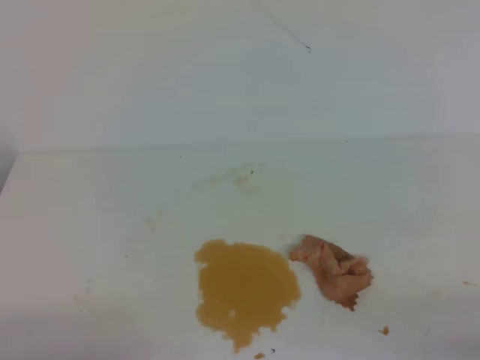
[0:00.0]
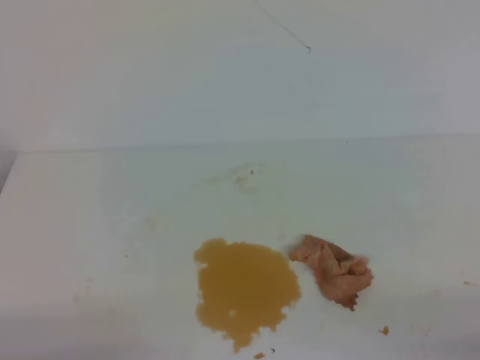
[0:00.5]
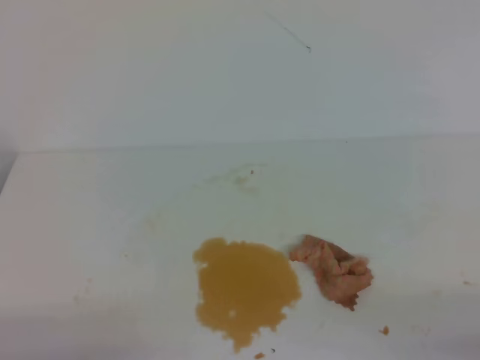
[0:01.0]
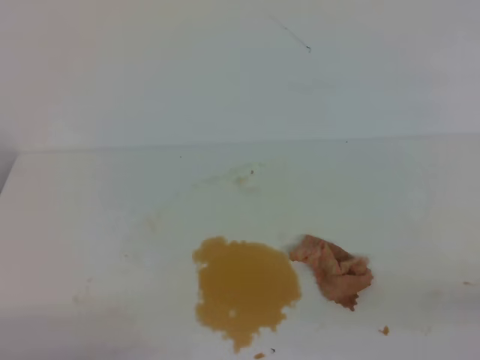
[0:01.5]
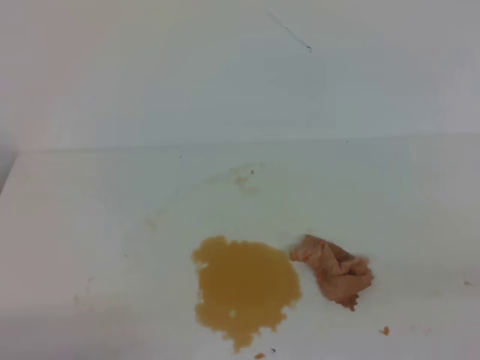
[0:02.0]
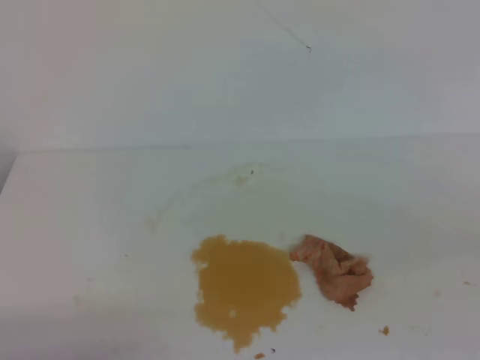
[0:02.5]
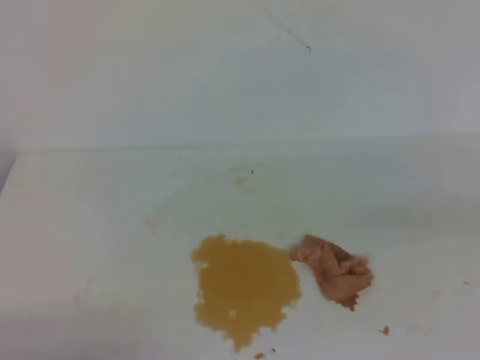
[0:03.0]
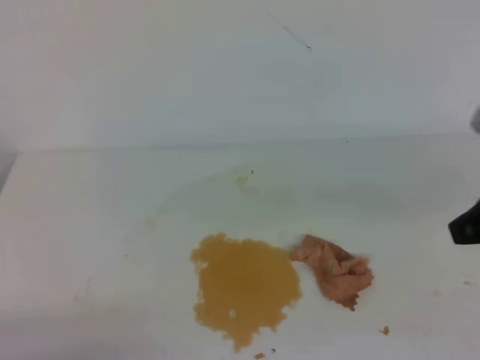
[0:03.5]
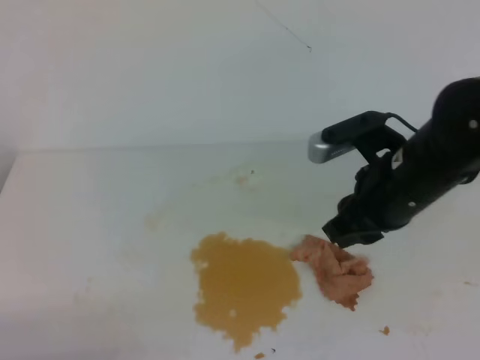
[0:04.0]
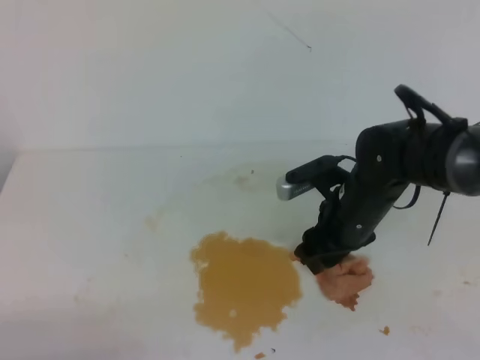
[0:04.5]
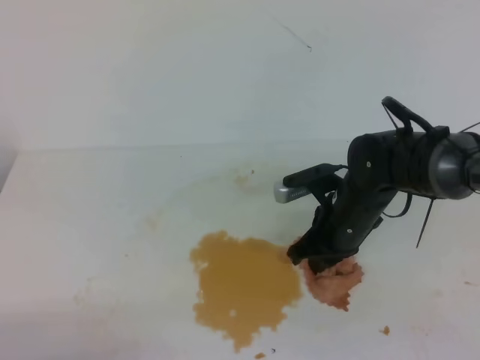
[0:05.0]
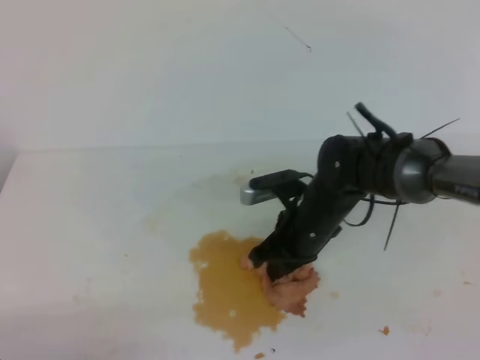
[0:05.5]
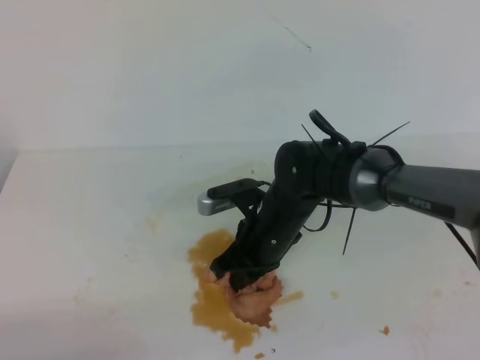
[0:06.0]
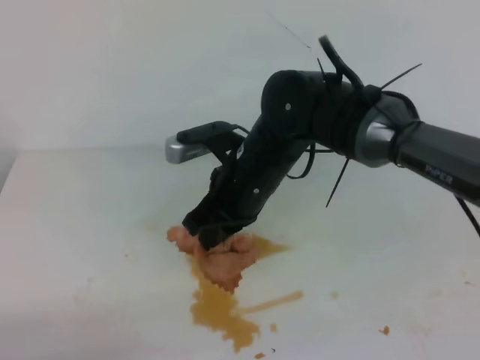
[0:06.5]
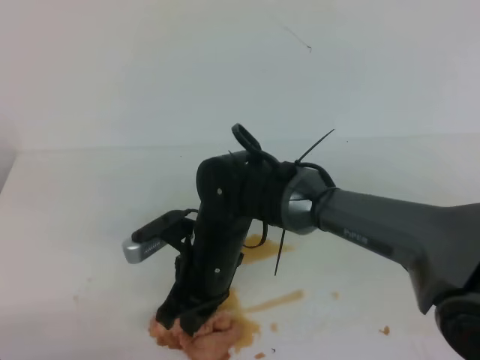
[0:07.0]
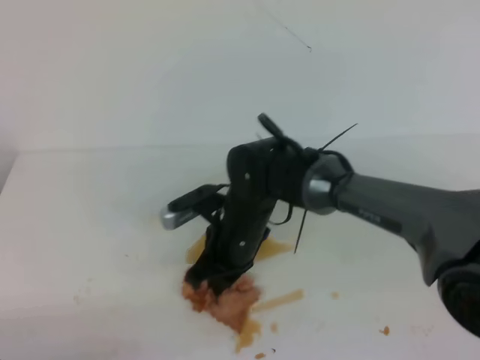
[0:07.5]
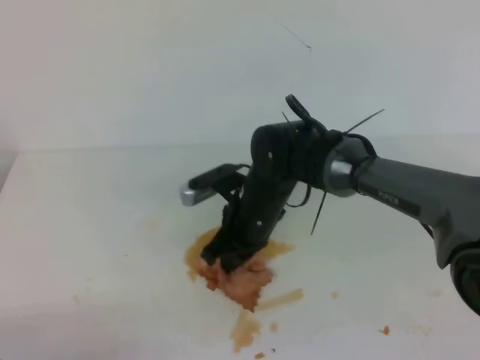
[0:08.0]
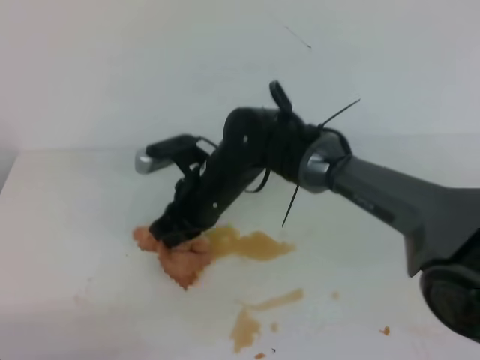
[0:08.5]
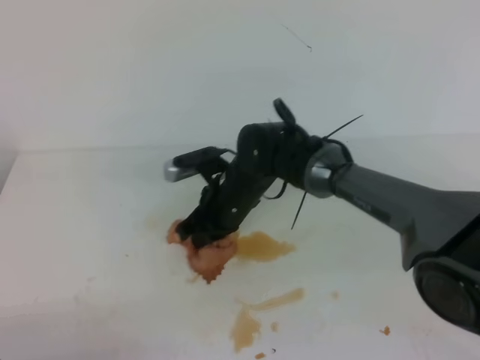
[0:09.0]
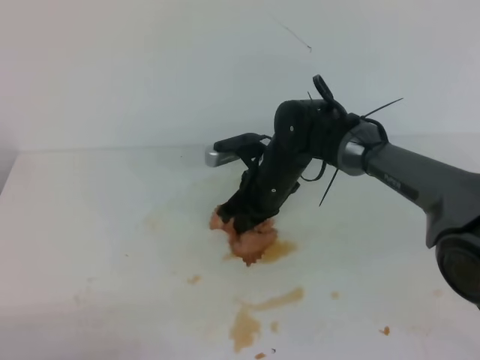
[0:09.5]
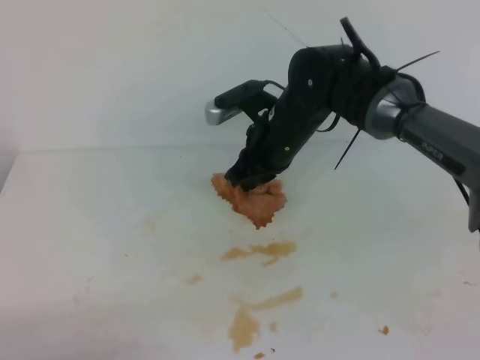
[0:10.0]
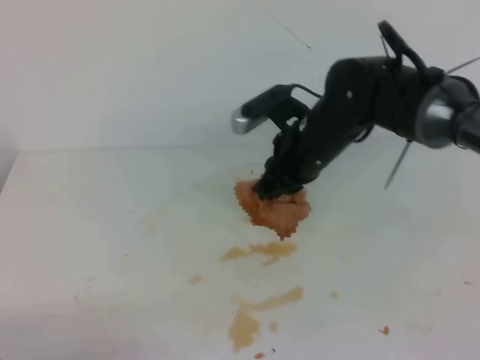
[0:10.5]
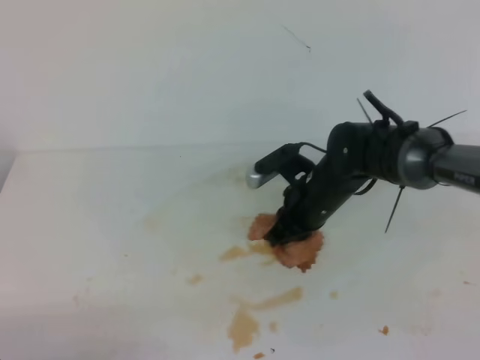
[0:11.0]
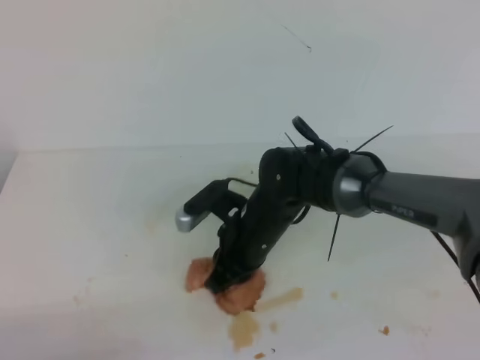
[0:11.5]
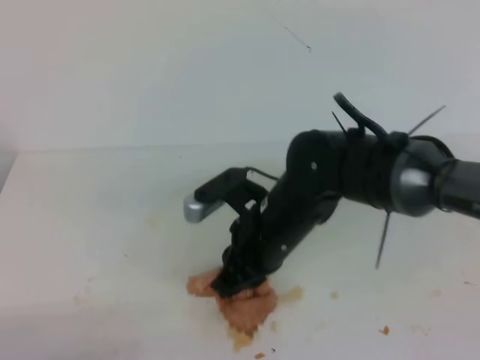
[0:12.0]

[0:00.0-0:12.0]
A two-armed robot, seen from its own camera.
0:02.0 to 0:04.0: The right gripper is displaced forward and to the left by roughly 30 cm, and opens.
0:04.0 to 0:06.0: The right gripper goes some 20 cm to the left, downward and forward, and closes.
0:06.0 to 0:08.0: The right gripper moves about 5 cm upward and comes back.
0:08.0 to 0:10.0: The right gripper shifts some 5 cm forward.
0:10.0 to 0:12.0: The right gripper heads backward, covering approximately 15 cm.

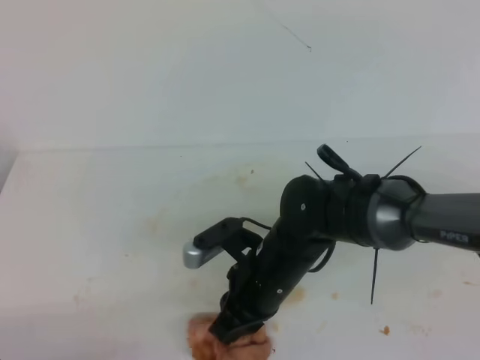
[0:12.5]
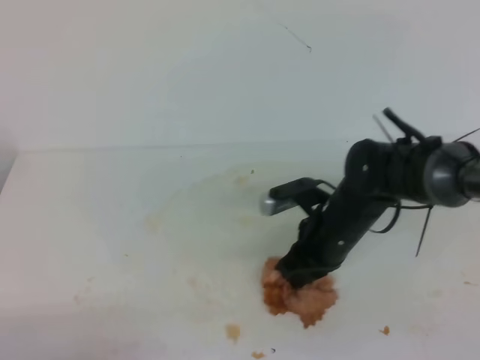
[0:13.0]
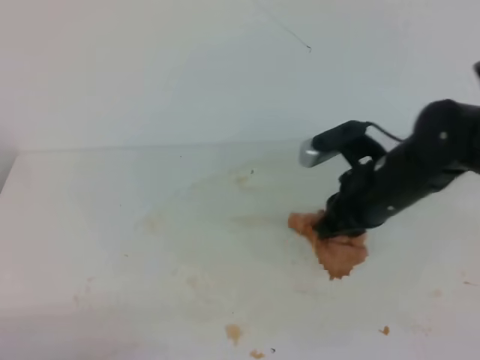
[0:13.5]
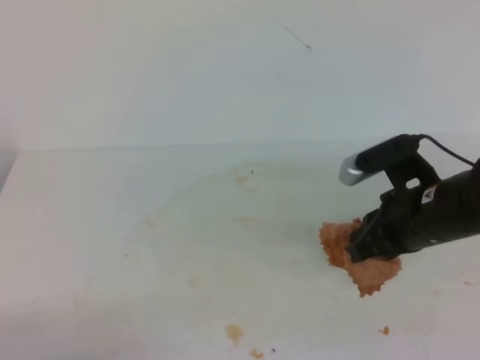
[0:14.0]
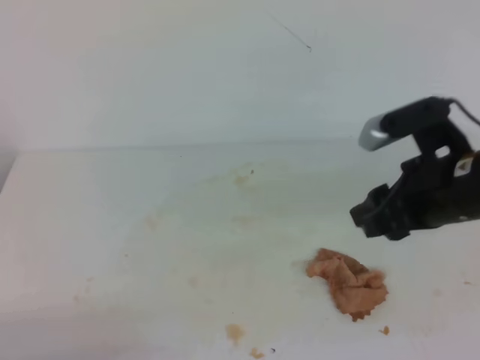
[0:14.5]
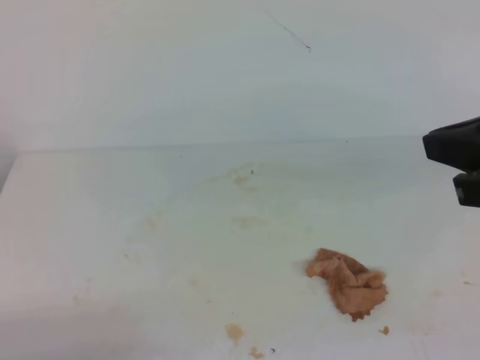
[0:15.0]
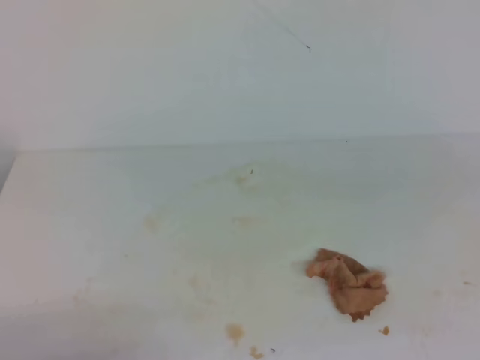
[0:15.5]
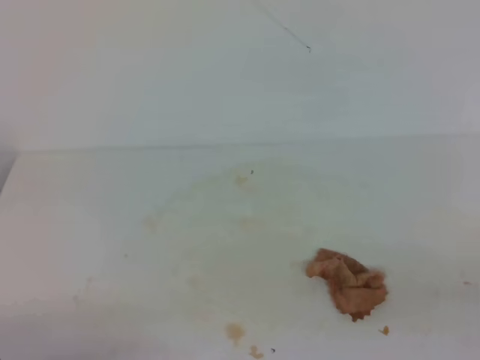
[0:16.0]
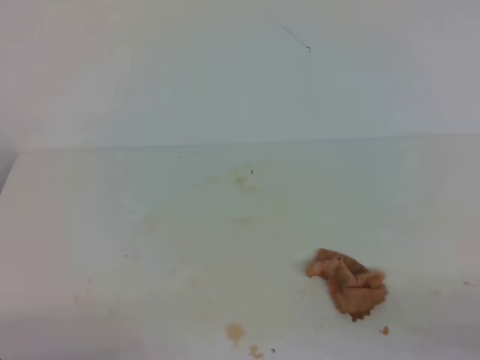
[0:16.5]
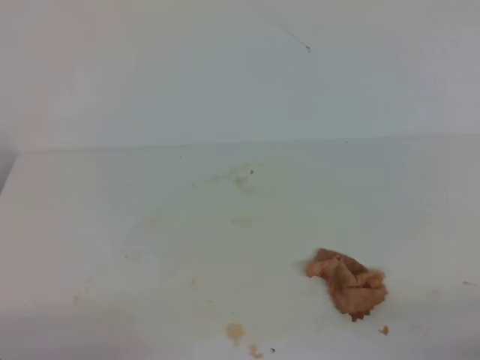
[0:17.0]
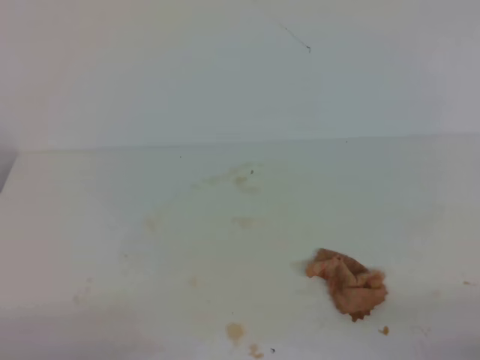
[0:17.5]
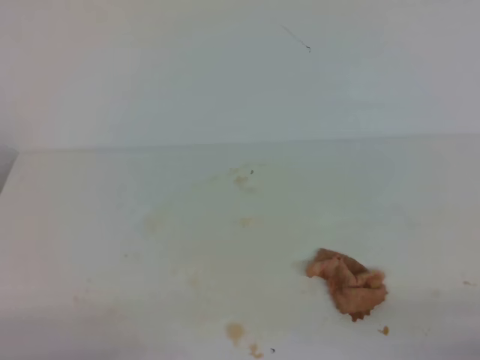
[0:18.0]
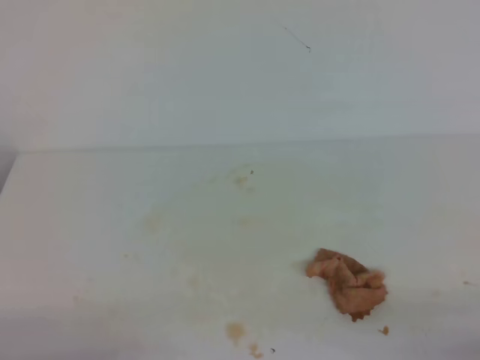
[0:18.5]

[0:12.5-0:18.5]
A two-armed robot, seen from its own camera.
0:12.5 to 0:14.5: The right gripper heads to the right and upward, covering roughly 20 cm, and opens its fingers.
0:14.5 to 0:16.5: The right gripper shifts some 25 cm backward and to the right, and closes.
